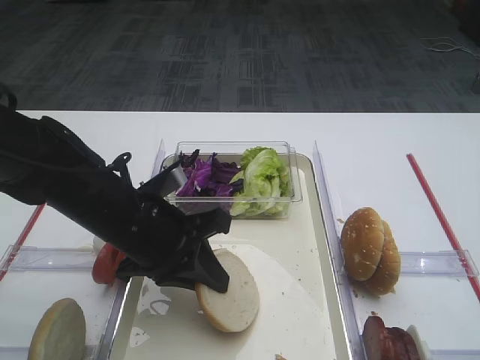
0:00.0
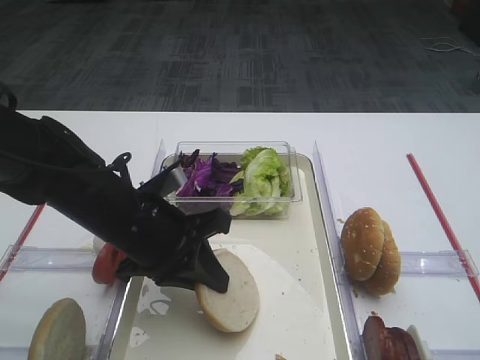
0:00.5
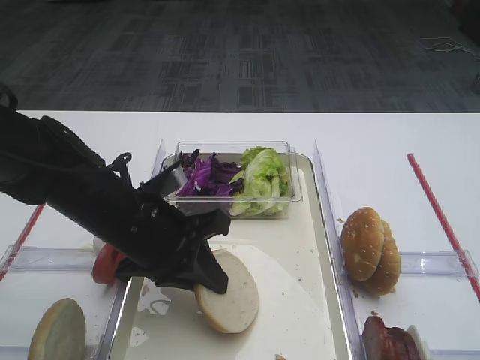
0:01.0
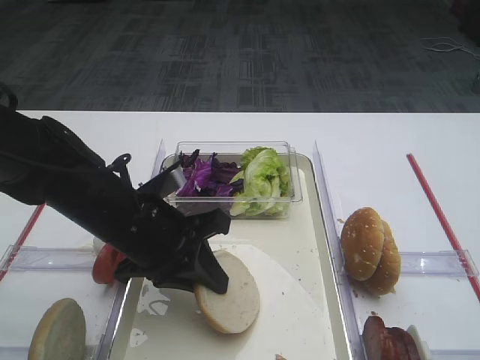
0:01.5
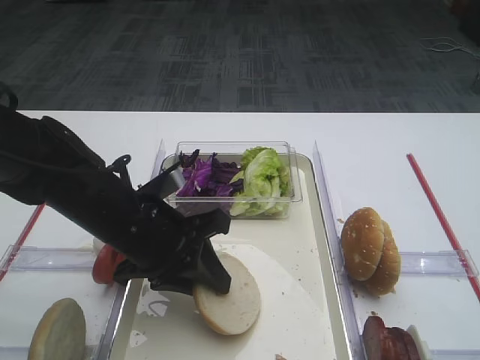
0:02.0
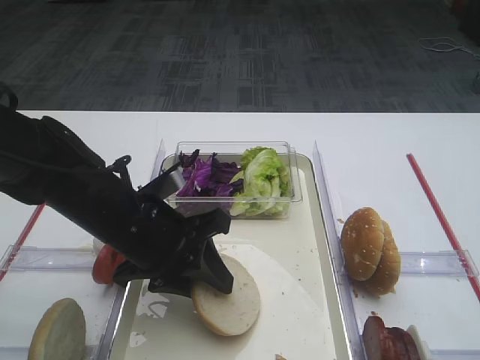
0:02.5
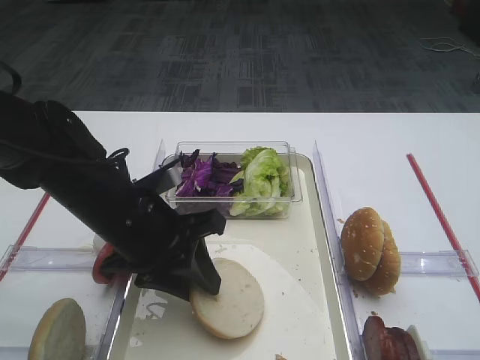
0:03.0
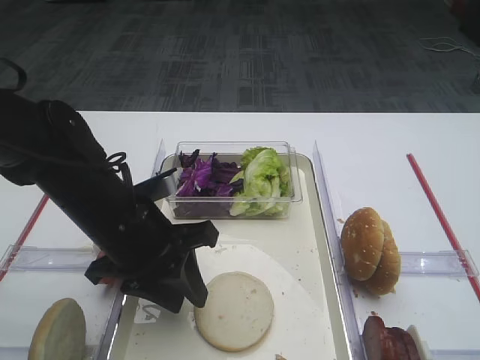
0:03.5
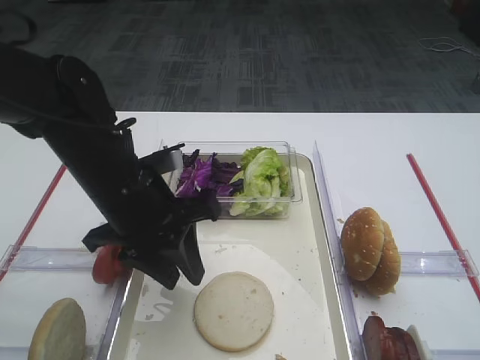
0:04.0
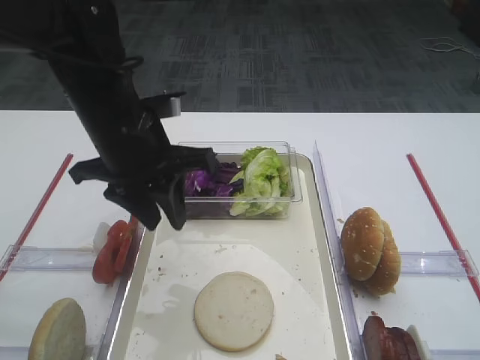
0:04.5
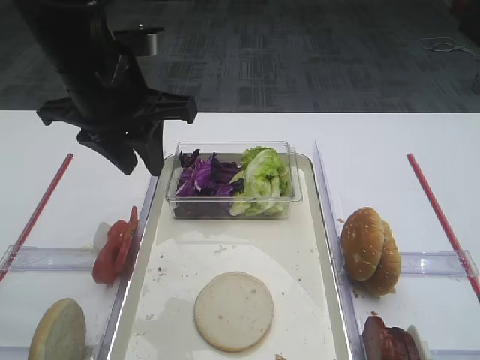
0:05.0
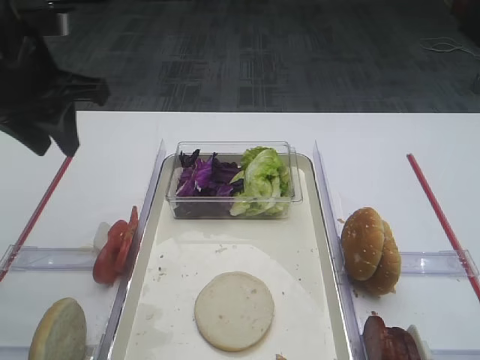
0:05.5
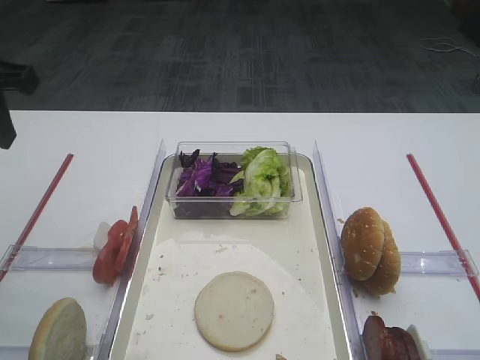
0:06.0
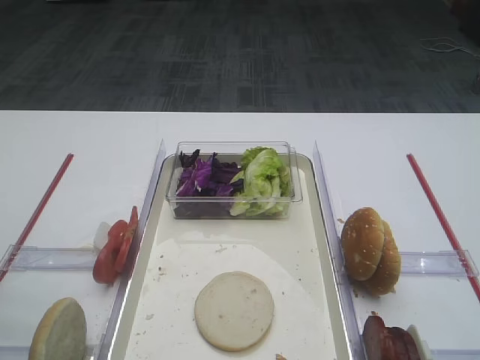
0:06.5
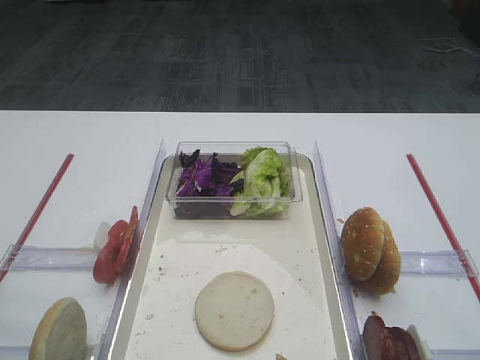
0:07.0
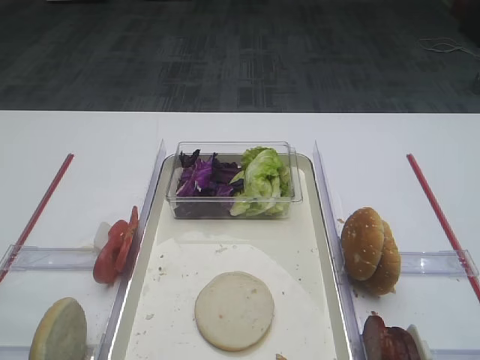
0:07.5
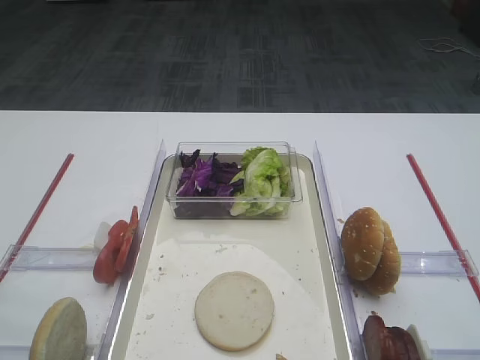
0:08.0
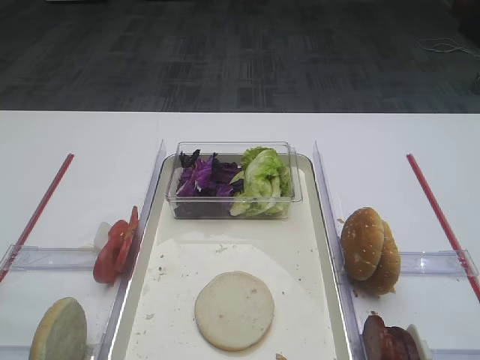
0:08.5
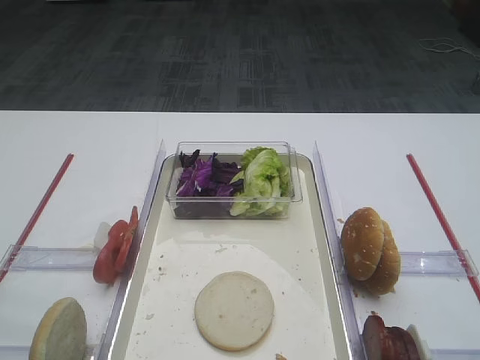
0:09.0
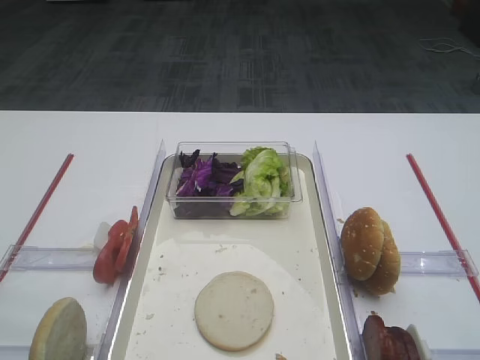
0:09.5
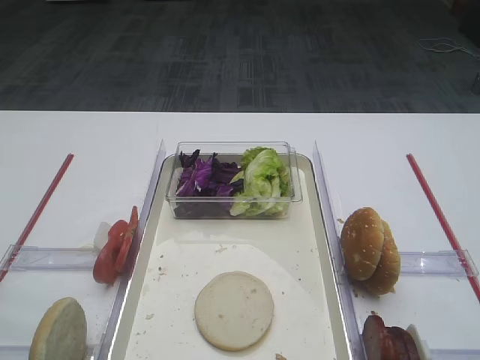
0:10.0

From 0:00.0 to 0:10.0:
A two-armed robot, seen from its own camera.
Step, from 0:00.0 to 0:04.0: Place the bread slice on the tray with the left gripper.
From 0:00.0 to 0:02.0: The two grippers keep their place.
From 0:02.0 to 0:04.0: The grippers make only small movements.
From 0:04.0 to 0:06.0: The left gripper is displaced to the left and upward by roughly 20 cm.
From 0:06.0 to 0:08.0: The left gripper shifts about 30 cm backward.
From 0:08.0 to 0:10.0: Both grippers stay put.

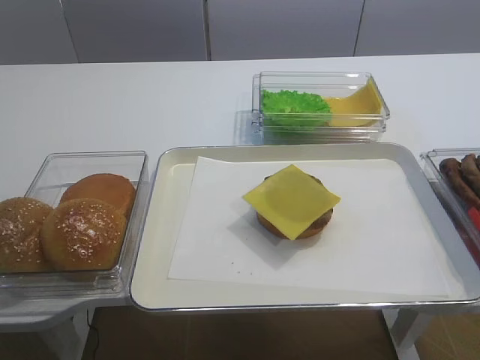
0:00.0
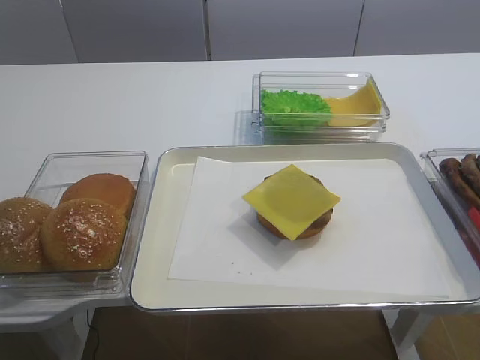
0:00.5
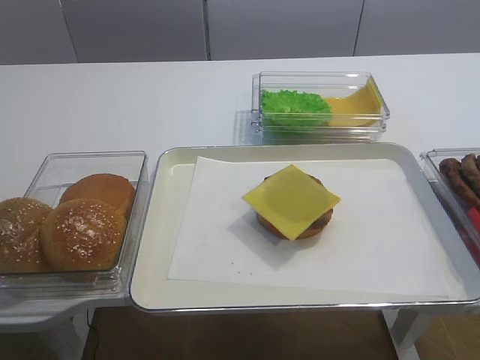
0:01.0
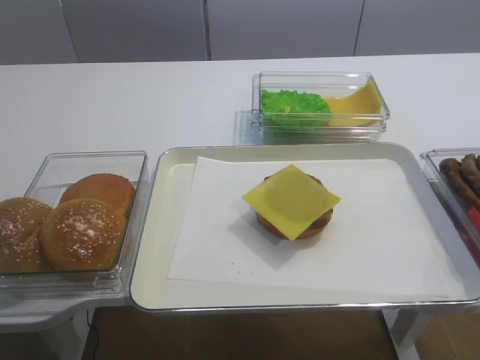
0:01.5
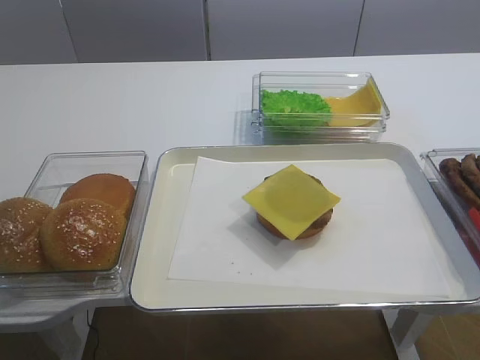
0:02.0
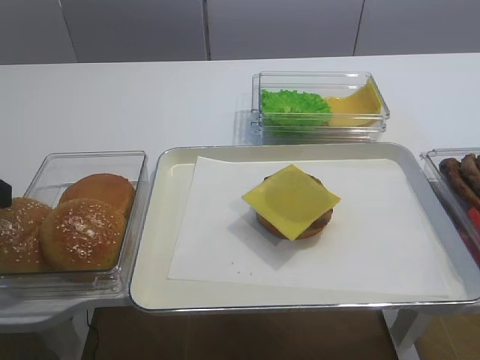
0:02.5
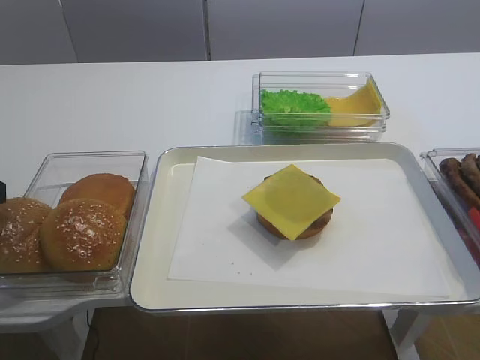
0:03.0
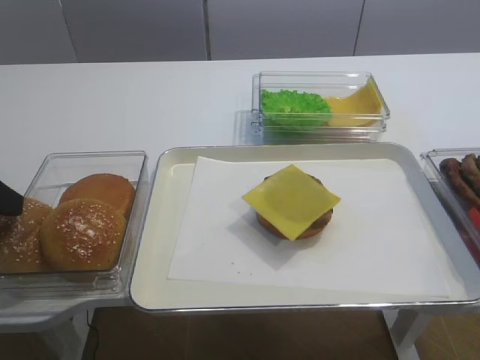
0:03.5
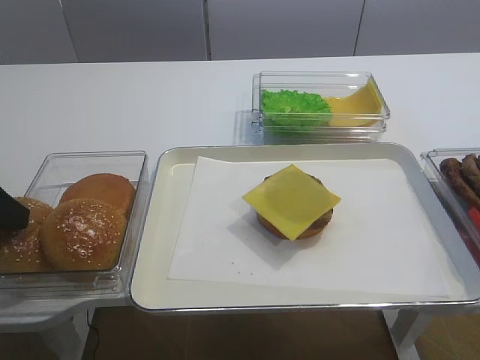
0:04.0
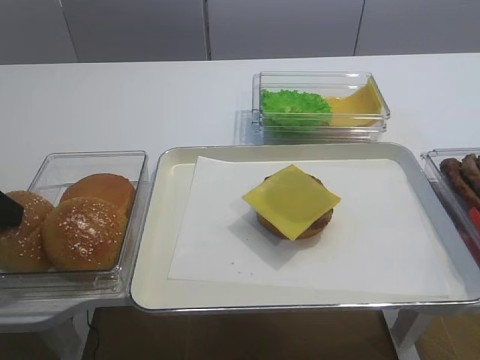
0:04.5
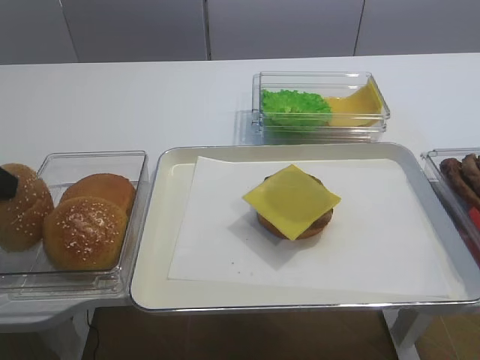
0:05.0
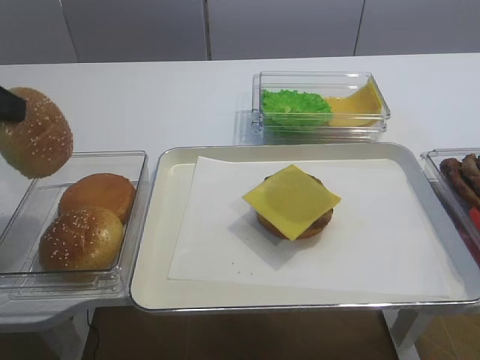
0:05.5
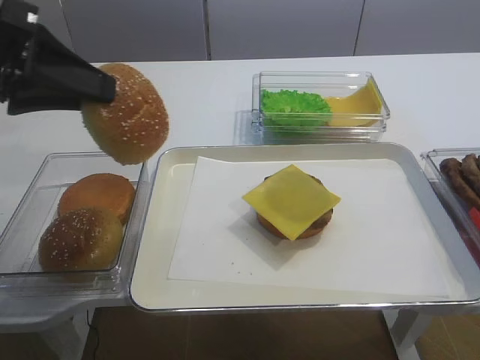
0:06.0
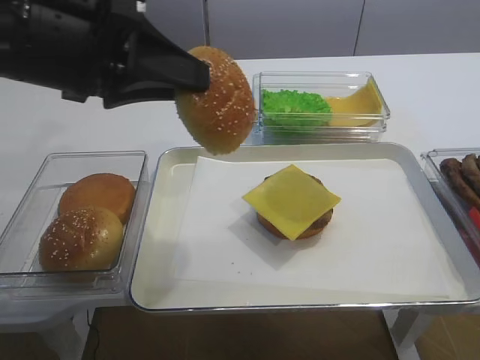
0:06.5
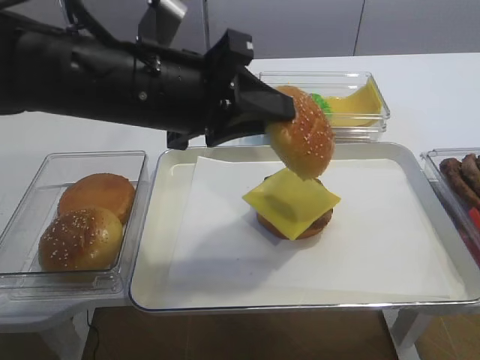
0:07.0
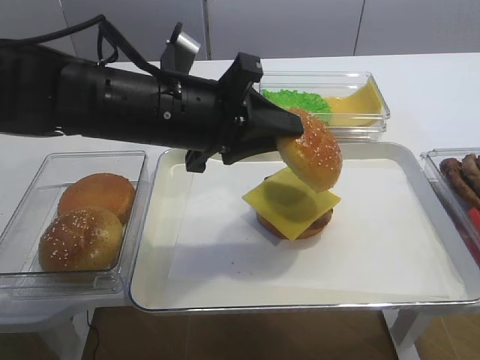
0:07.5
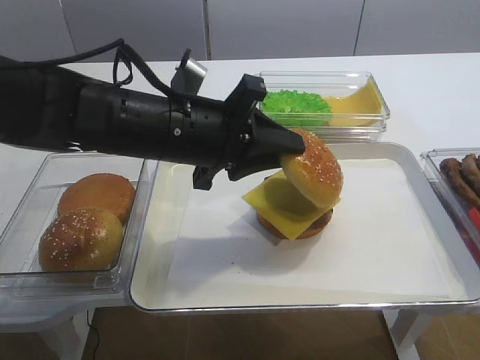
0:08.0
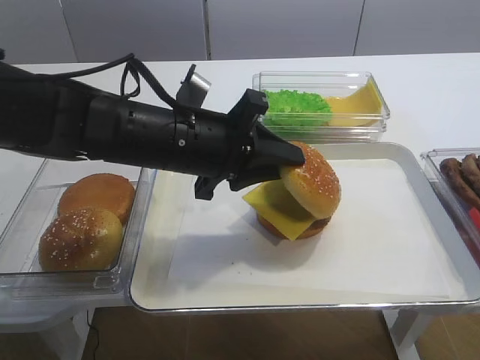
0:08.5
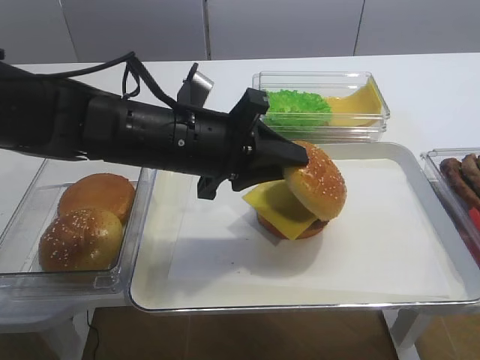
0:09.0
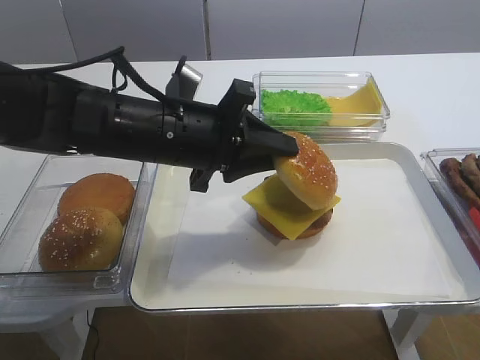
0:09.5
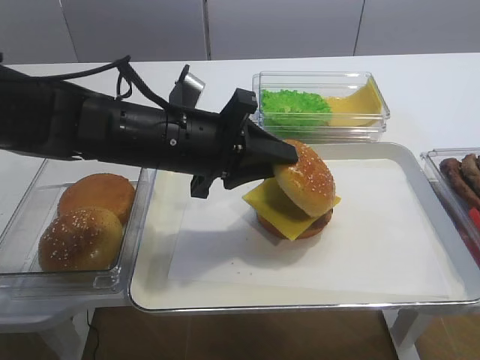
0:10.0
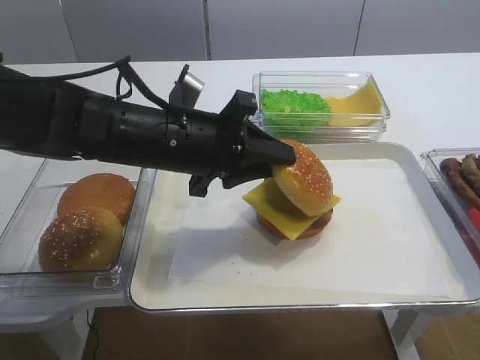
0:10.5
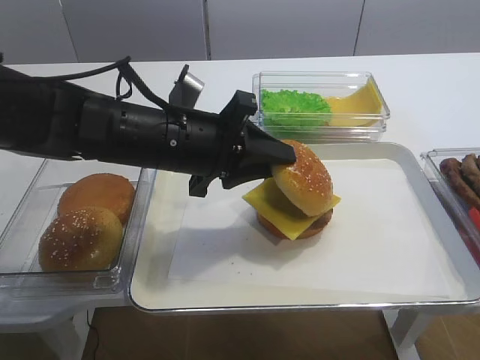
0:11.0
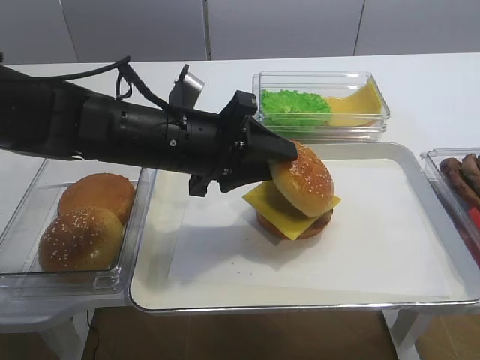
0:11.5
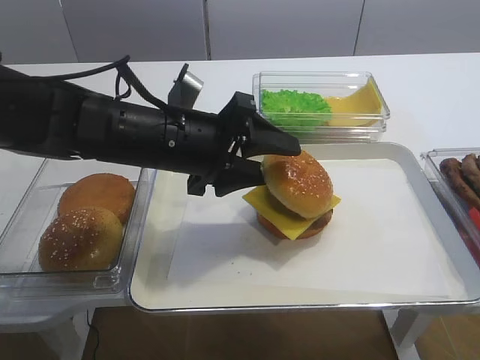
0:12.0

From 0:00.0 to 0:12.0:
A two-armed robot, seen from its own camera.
Step, from 0:00.0 to 0:05.0: Pick up the hamburger lid with the left gripper.
From 0:02.0 to 0:04.0: The left gripper heads forward and downward, covering some 15 cm.
From 0:04.0 to 0:06.0: The left gripper shifts roughly 10 cm upward and to the right, and closes up.
From 0:06.0 to 0:08.0: The left gripper shifts about 20 cm to the right and downward.
From 0:08.0 to 0:10.0: The grippers make only small movements.
From 0:10.0 to 0:12.0: The left gripper opens.

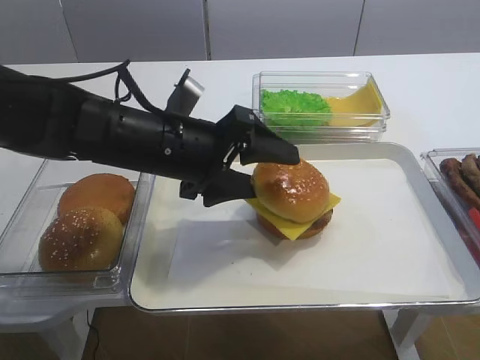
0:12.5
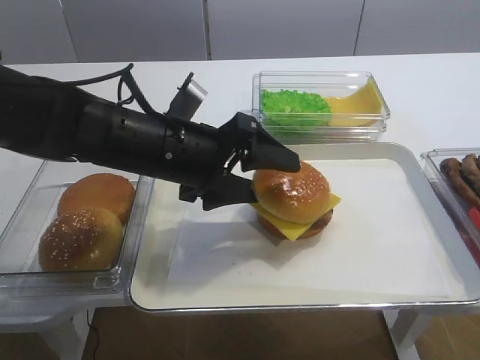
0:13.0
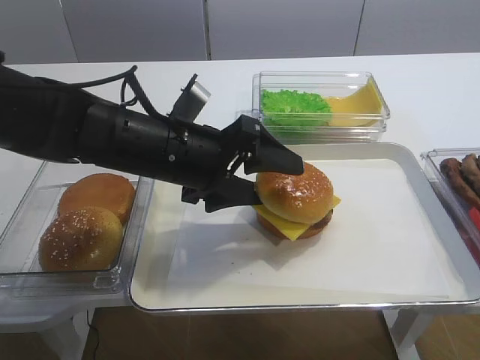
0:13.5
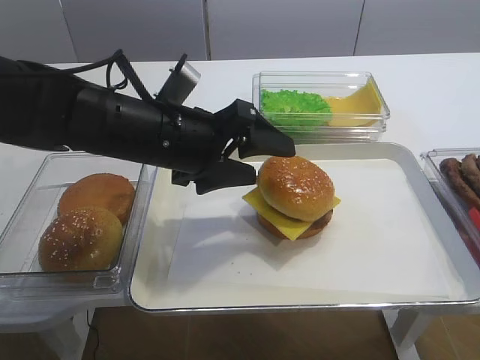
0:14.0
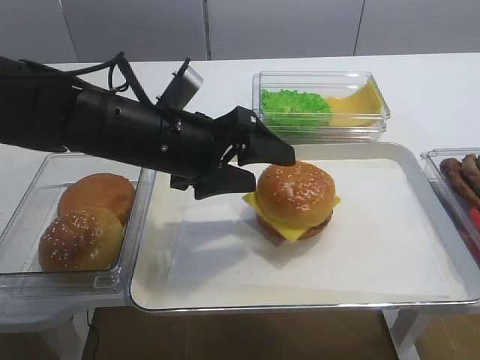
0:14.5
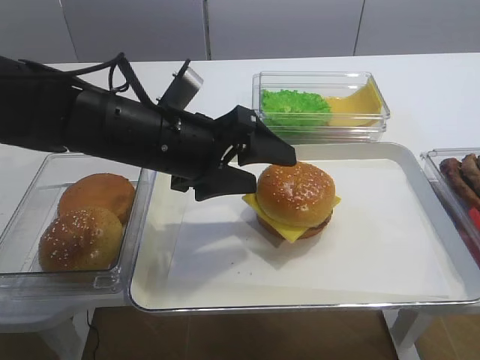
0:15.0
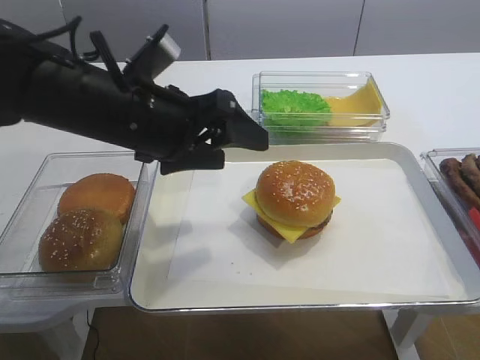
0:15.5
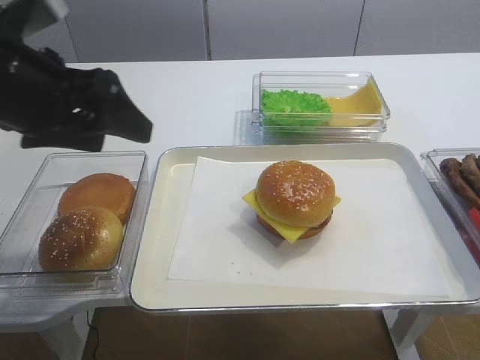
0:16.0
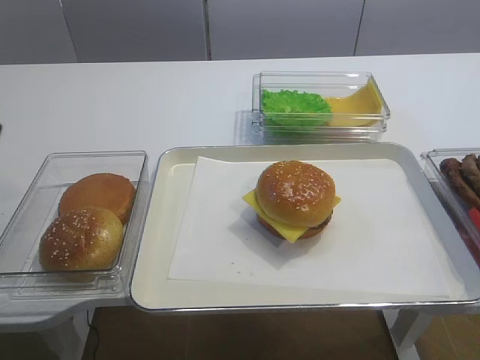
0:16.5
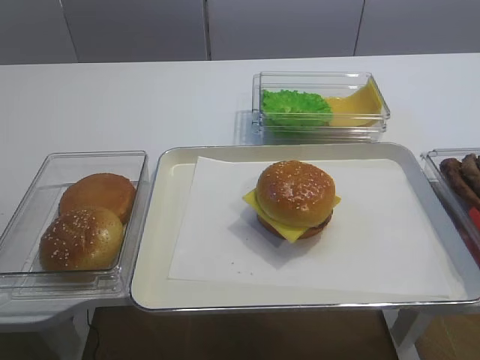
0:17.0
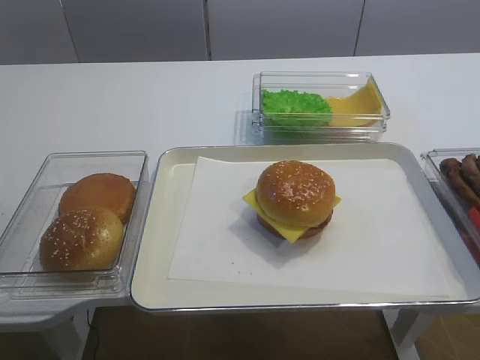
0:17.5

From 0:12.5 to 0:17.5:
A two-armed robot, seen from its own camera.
Step, from 0:12.5 to 0:14.5: Place the hamburger lid on the cheese slice with the left gripper.
From 0:12.5 to 0:15.0: The right gripper closes up.
From 0:15.0 to 0:17.5: The left gripper travels backward and to the left by approximately 35 cm.
